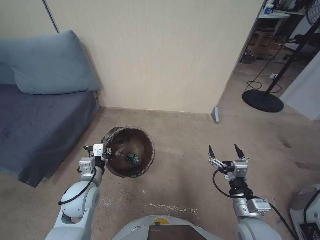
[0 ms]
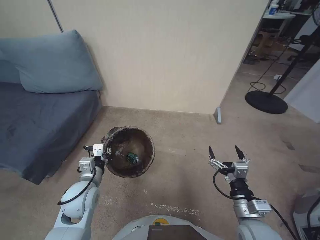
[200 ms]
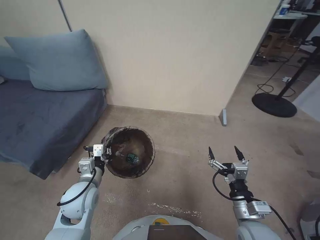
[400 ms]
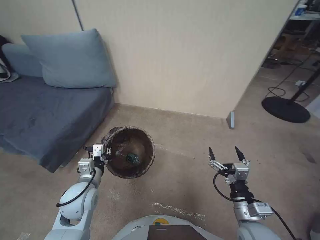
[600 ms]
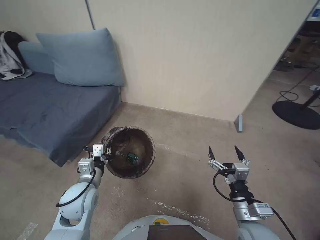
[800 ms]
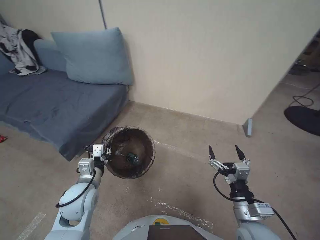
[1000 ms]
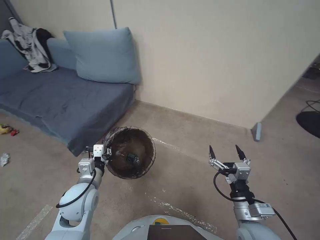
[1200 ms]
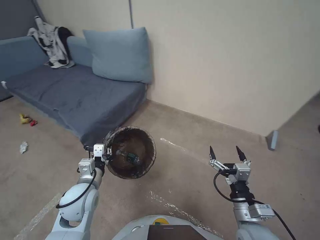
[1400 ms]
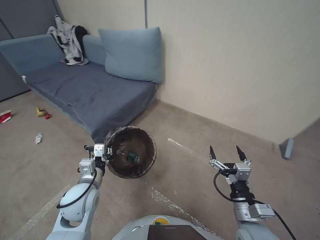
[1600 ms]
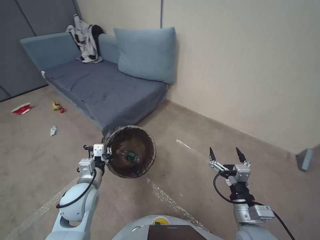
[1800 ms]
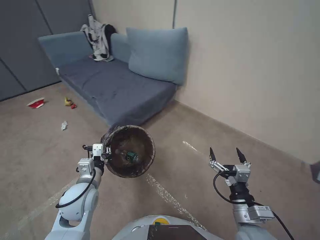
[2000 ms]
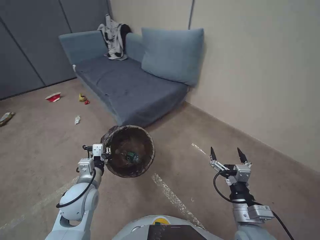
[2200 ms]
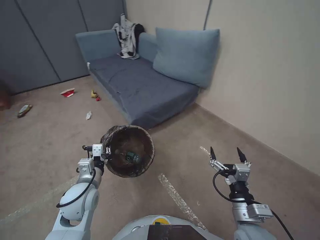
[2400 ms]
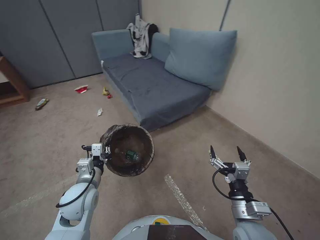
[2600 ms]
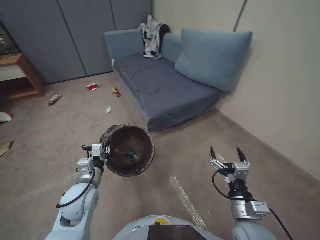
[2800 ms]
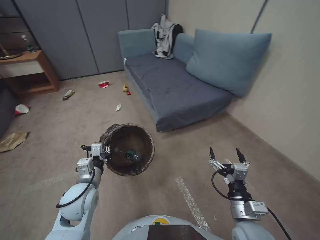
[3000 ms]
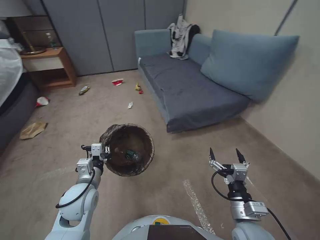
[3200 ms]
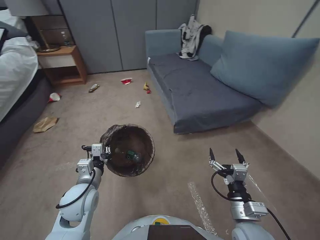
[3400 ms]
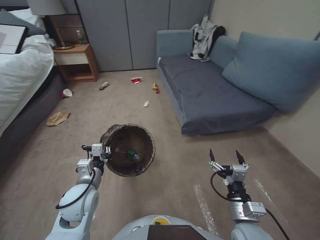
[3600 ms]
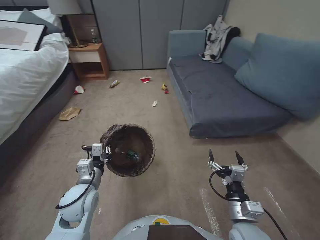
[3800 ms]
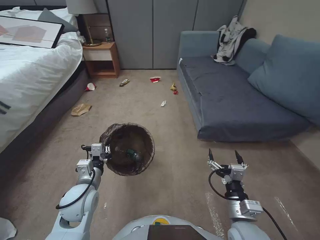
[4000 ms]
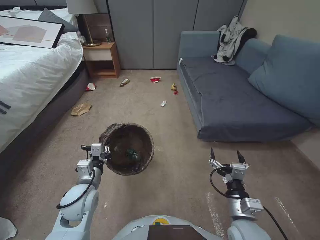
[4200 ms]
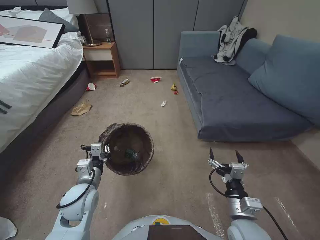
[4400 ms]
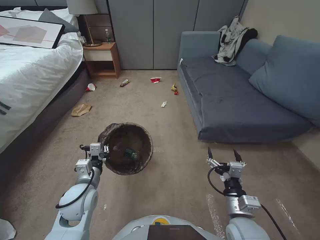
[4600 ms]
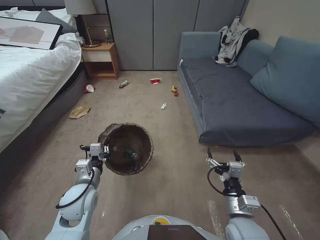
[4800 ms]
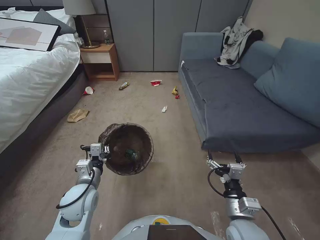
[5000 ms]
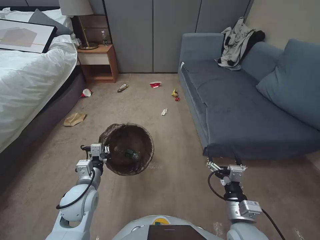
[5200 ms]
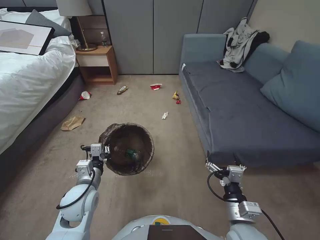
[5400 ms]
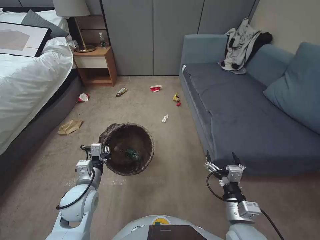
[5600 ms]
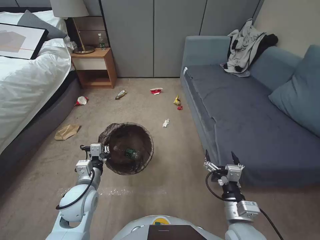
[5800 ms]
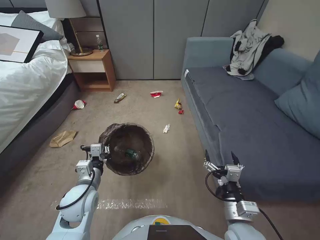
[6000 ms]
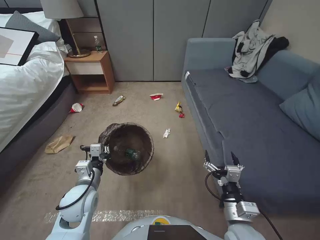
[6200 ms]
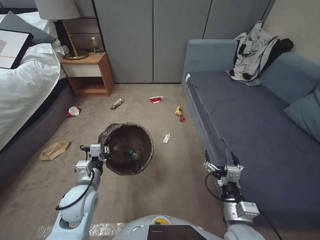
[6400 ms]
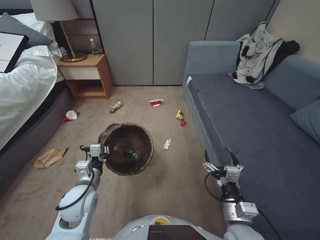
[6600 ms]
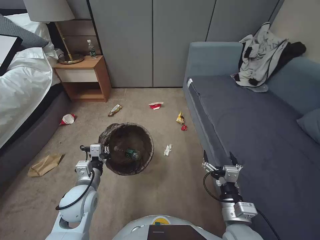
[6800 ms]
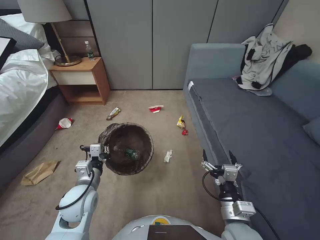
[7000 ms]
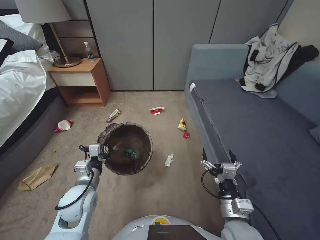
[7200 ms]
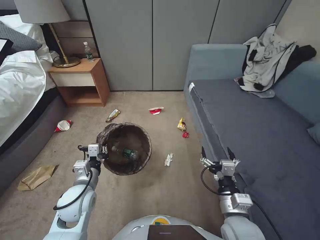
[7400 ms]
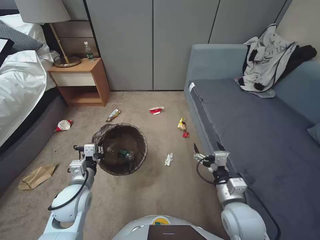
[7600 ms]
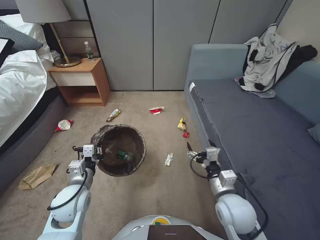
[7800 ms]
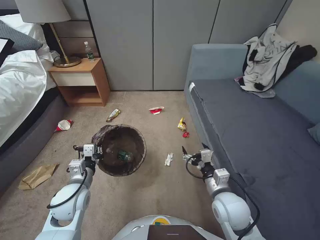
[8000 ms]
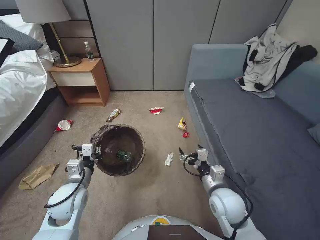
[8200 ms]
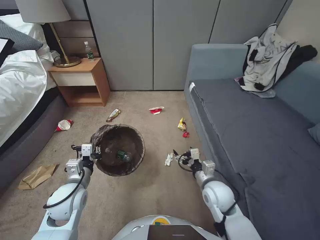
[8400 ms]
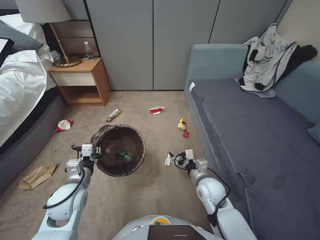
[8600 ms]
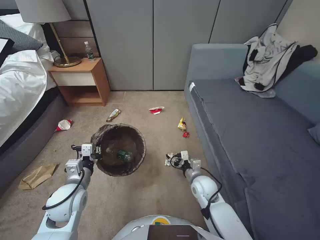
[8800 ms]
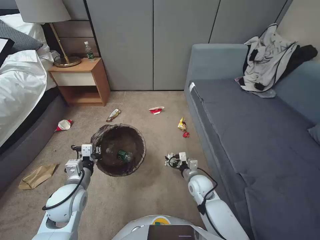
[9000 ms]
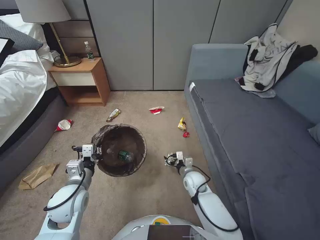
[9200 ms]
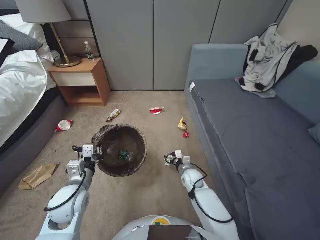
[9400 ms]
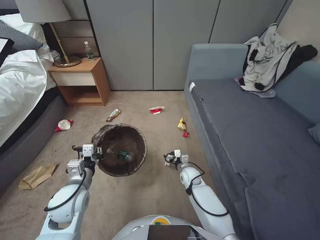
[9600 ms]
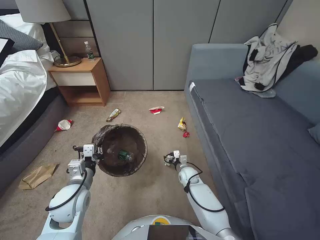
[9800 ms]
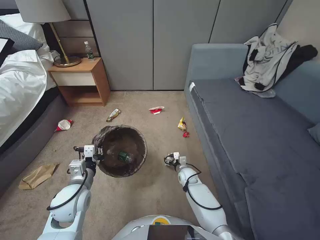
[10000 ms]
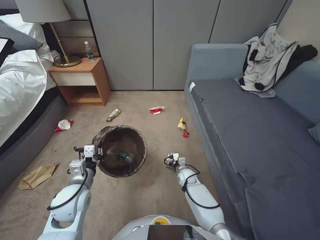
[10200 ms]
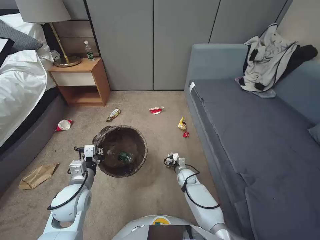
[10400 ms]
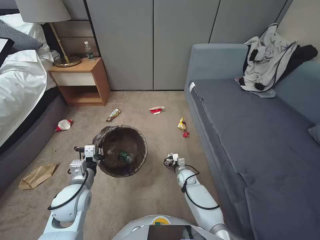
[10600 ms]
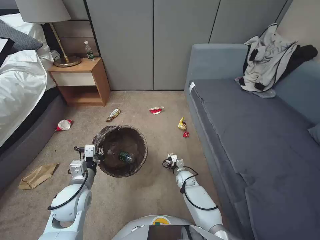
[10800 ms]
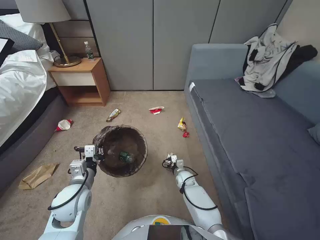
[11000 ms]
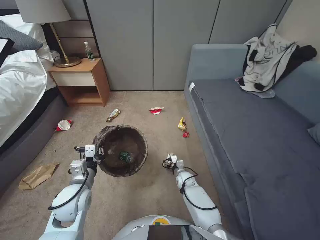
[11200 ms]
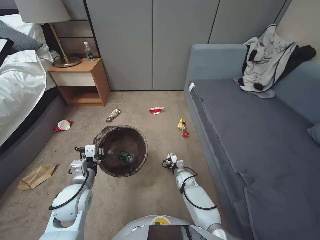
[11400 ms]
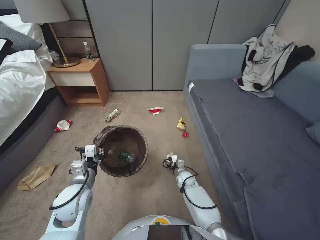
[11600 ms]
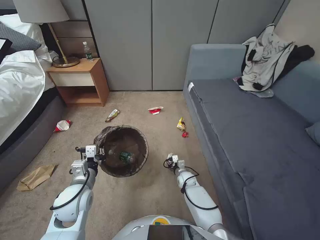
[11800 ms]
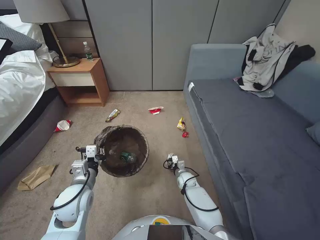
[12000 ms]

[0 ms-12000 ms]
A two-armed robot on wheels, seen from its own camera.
Task of the whole recording: Pick up the trash bin, then pick up the garbage from the floor and place it into the trash bin.
7600 ms to 9000 ms: The right gripper is displaced forward and downward by approximately 20 cm.
9000 ms to 10400 ms: The right gripper is displaced downward and forward by about 15 cm.
10400 ms to 12000 ms: The right gripper closes its fingers.

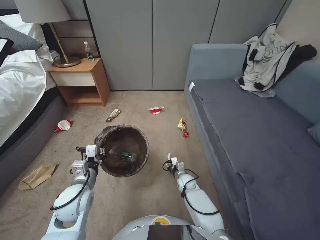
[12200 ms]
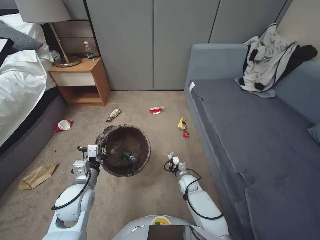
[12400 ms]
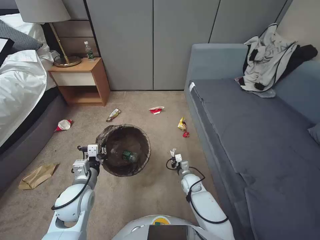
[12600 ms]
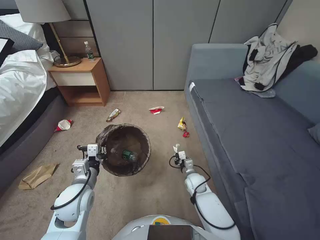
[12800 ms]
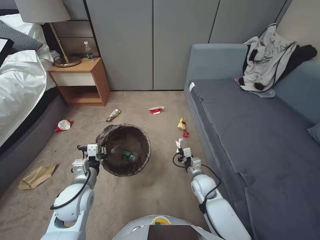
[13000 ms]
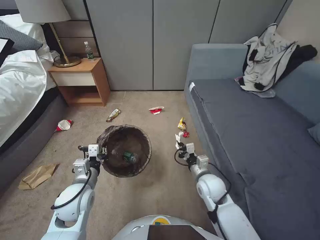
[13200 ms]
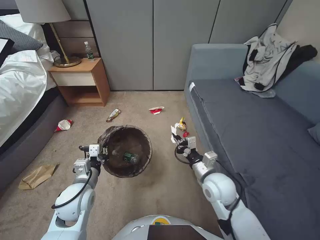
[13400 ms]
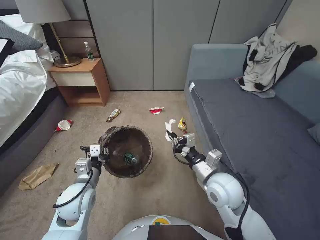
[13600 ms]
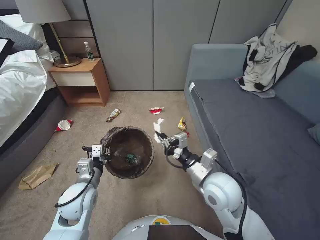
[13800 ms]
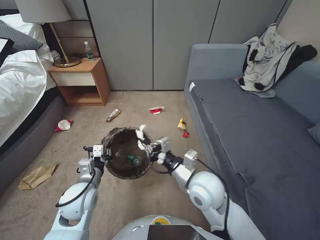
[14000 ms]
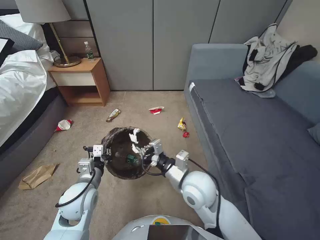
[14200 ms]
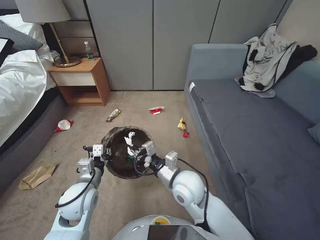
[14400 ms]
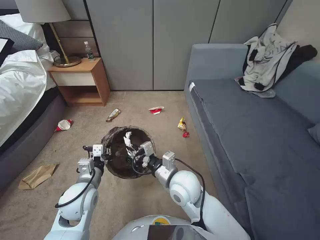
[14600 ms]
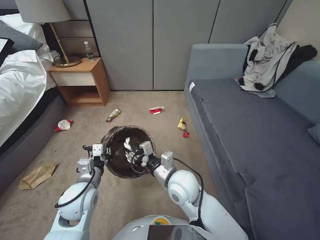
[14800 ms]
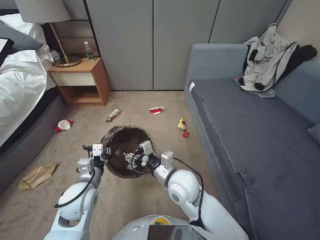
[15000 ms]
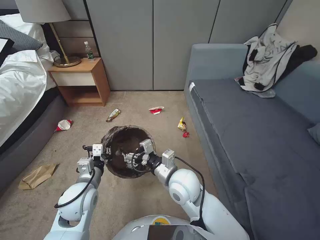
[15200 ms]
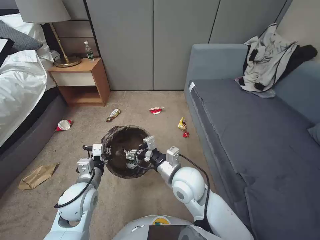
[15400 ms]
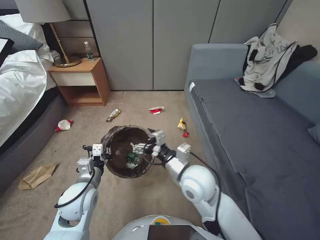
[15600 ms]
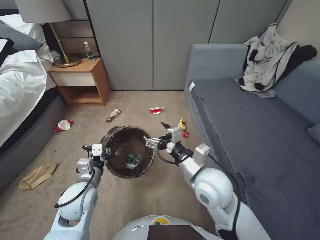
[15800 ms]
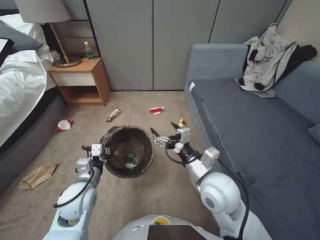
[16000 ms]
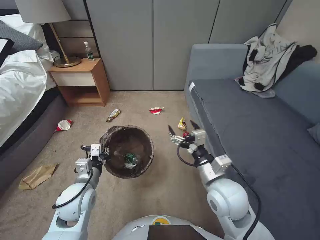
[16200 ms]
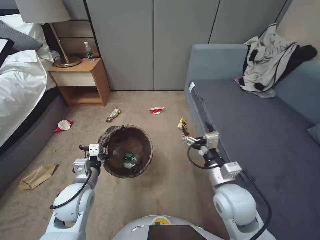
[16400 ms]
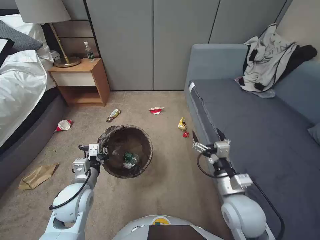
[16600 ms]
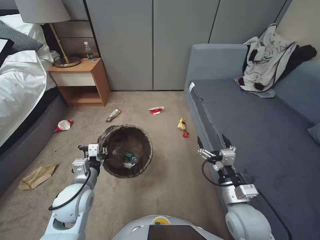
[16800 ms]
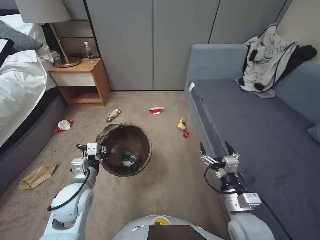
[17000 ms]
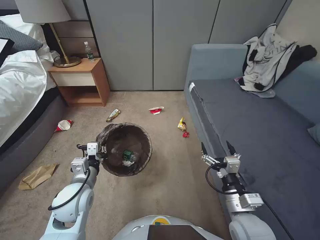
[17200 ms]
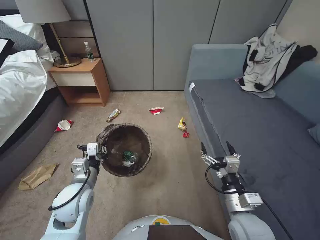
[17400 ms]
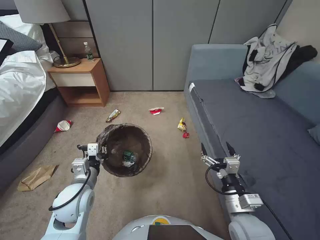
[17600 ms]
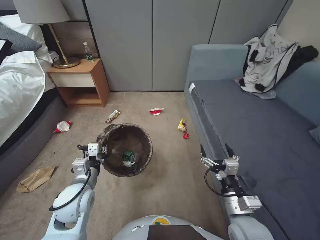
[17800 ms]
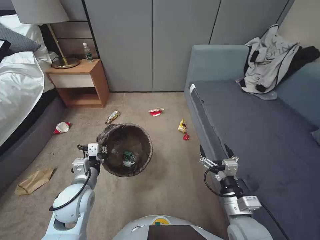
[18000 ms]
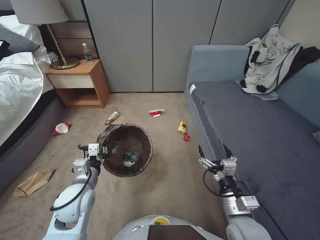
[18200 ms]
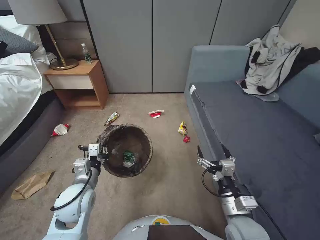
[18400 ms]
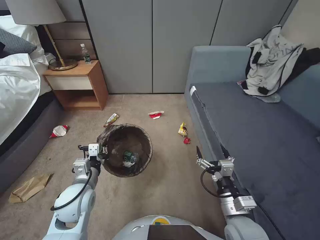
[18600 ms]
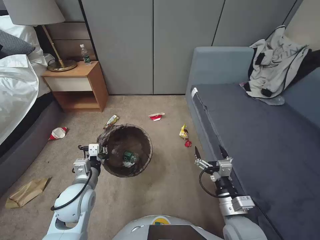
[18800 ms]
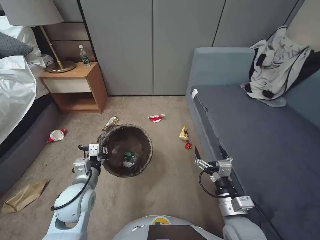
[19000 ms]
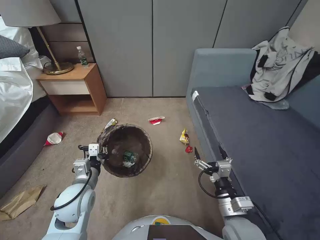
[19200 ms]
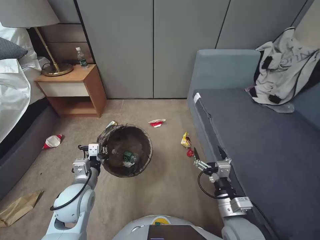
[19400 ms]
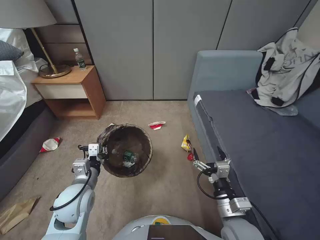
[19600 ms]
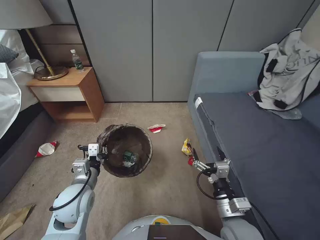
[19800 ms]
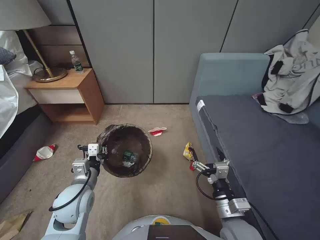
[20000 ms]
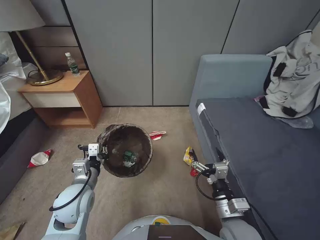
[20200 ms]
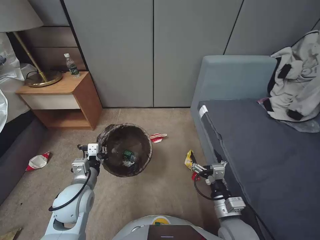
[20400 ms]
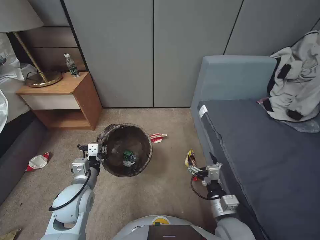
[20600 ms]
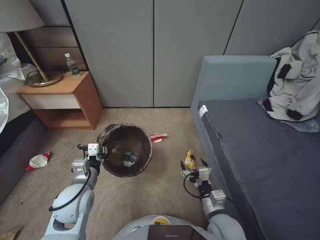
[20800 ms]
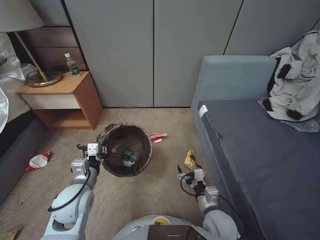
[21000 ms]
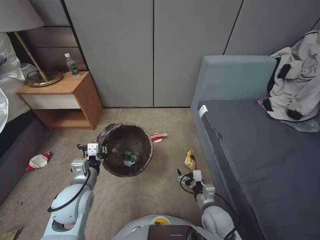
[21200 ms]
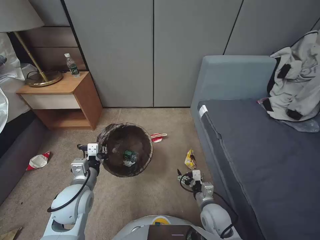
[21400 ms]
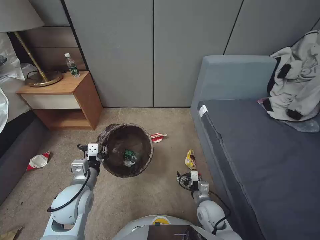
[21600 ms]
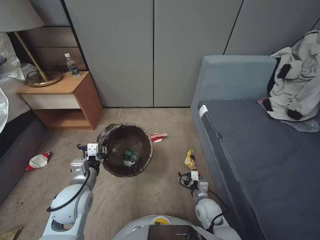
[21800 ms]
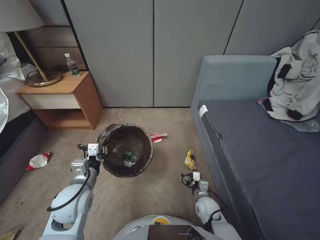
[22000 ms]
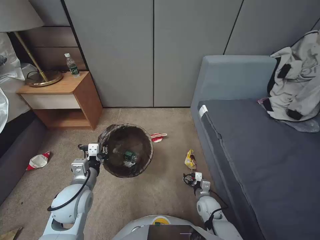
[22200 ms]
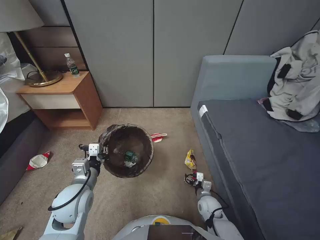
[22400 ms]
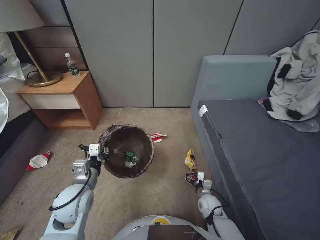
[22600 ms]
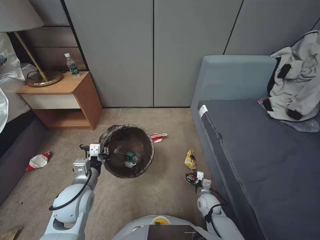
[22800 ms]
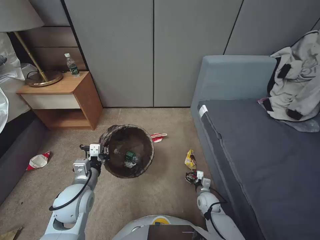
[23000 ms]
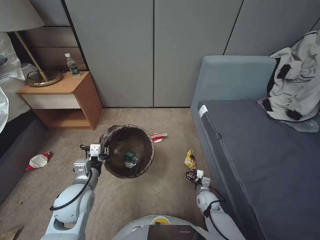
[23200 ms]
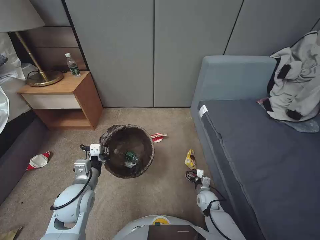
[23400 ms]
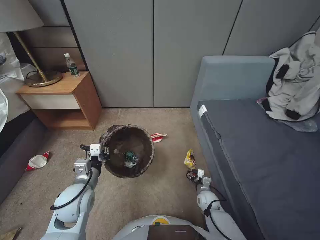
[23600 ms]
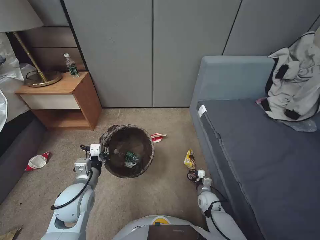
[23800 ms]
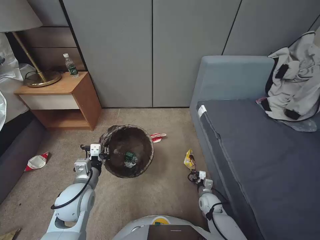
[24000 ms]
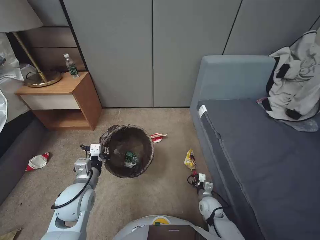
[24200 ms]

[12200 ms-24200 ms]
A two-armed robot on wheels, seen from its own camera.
Task of the whole recording: Pick up the trash bin, then pick up the garbage from the floor and place it into the trash bin.
12200 ms to 13800 ms: The right gripper heads upward, covering about 35 cm.
13800 ms to 15200 ms: The right gripper moves to the left, about 10 cm, and opens its fingers.
15200 ms to 16600 ms: The right gripper travels to the right by about 15 cm.
16600 ms to 18200 ms: The right gripper heads backward, covering roughly 5 cm.
19800 ms to 21200 ms: The right gripper goes roughly 10 cm downward.
21200 ms to 22600 ms: The right gripper travels downward and forward by approximately 15 cm.
22600 ms to 24200 ms: The right gripper closes up.
